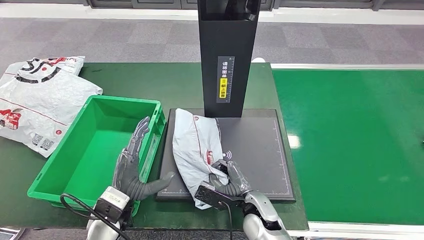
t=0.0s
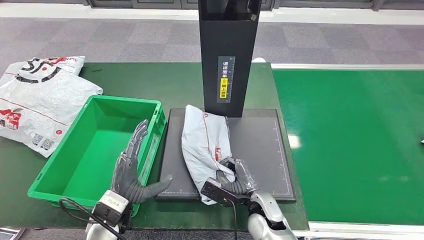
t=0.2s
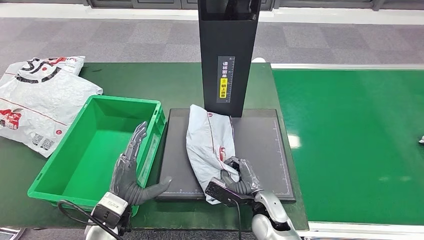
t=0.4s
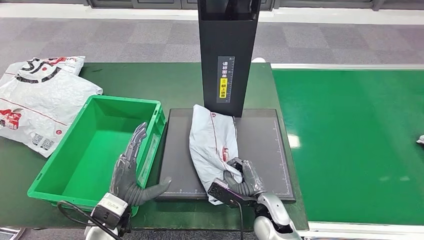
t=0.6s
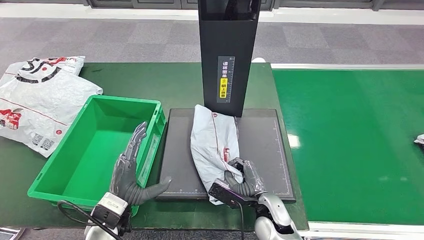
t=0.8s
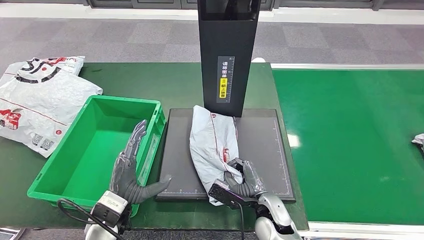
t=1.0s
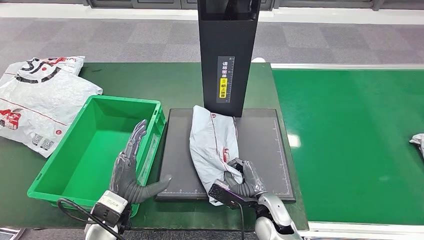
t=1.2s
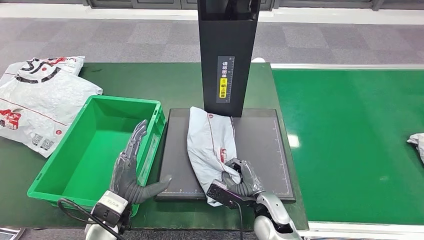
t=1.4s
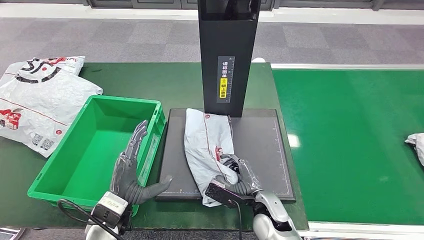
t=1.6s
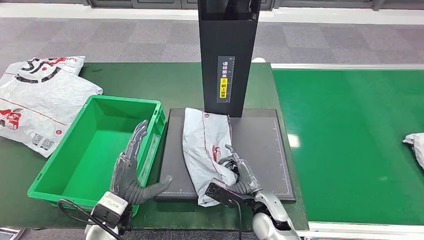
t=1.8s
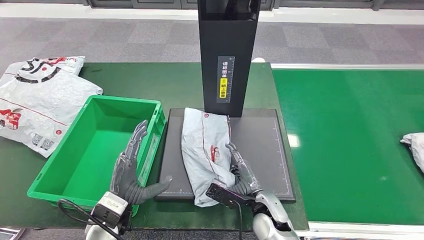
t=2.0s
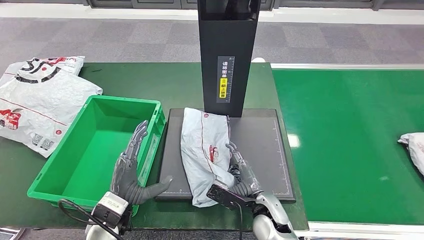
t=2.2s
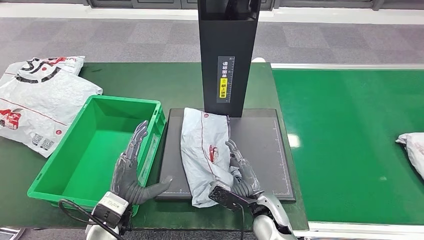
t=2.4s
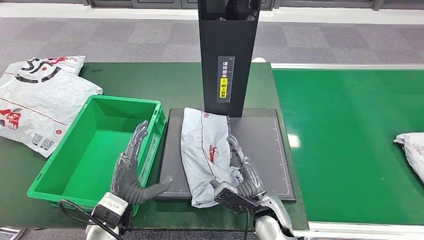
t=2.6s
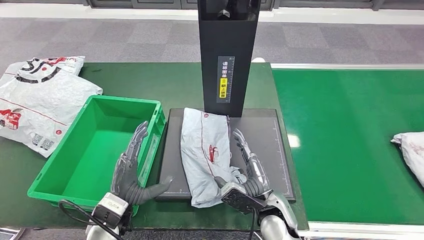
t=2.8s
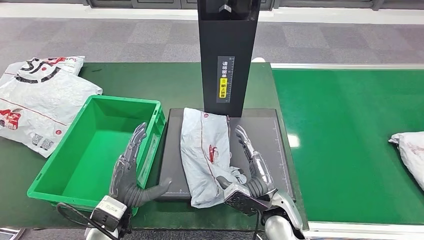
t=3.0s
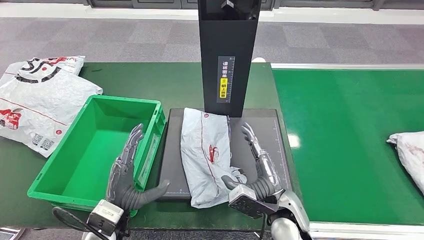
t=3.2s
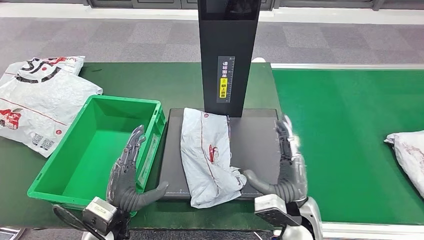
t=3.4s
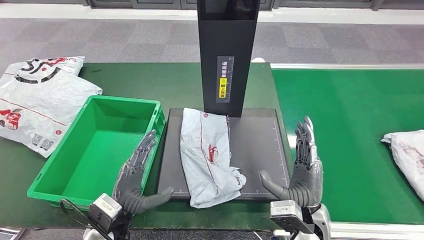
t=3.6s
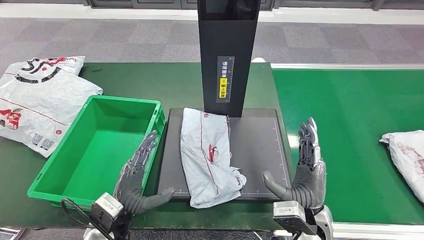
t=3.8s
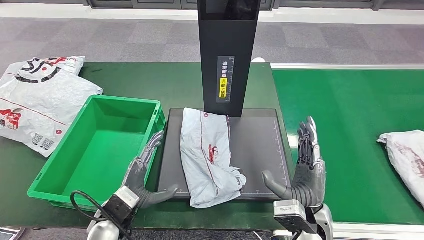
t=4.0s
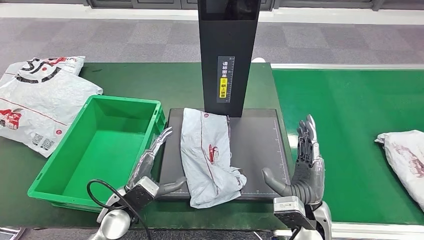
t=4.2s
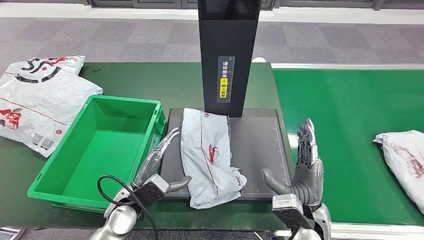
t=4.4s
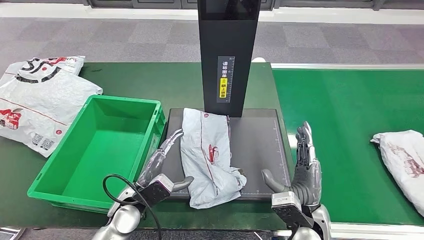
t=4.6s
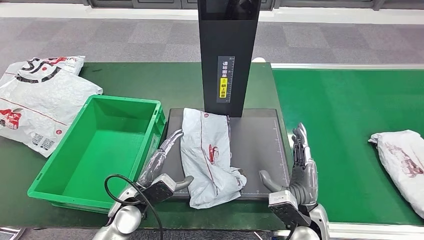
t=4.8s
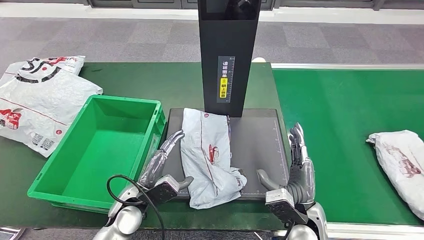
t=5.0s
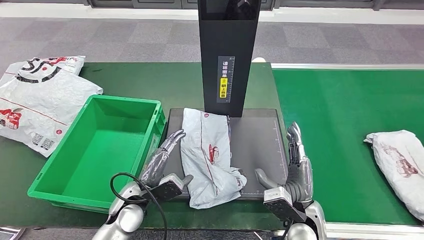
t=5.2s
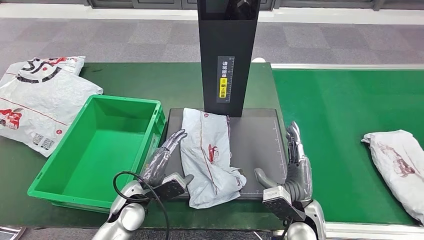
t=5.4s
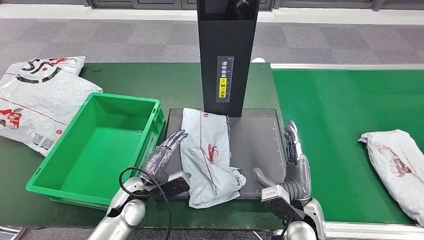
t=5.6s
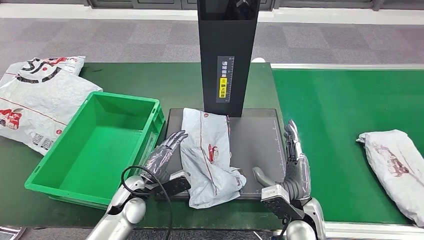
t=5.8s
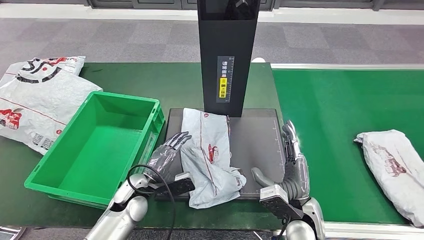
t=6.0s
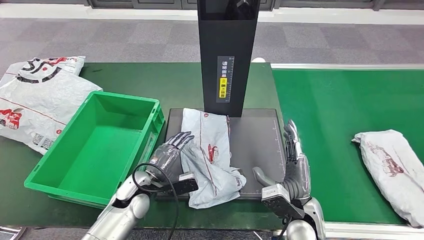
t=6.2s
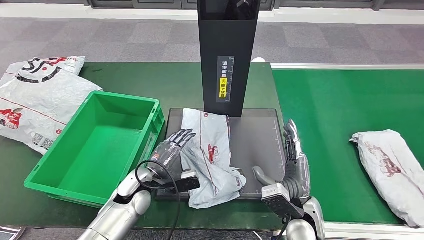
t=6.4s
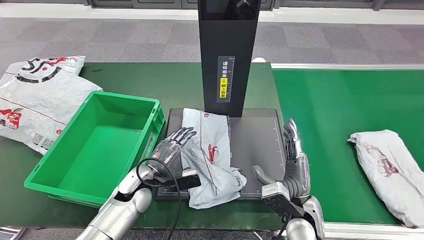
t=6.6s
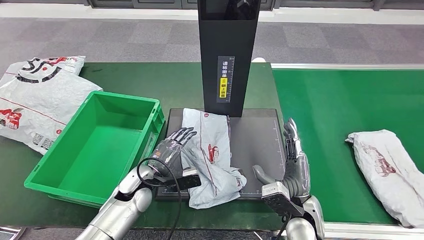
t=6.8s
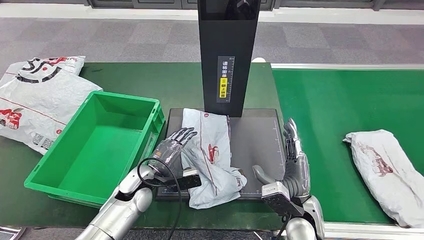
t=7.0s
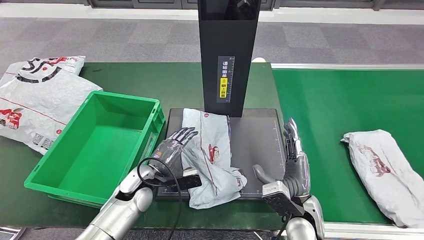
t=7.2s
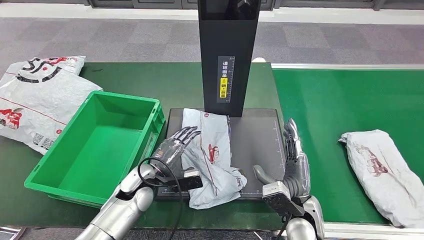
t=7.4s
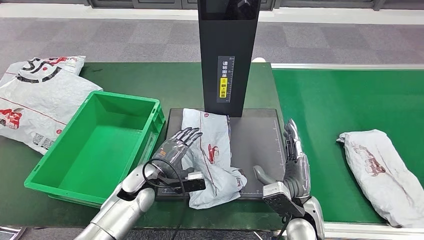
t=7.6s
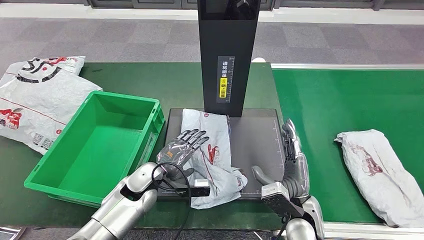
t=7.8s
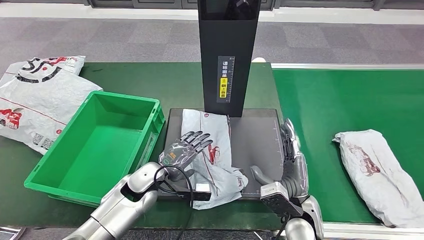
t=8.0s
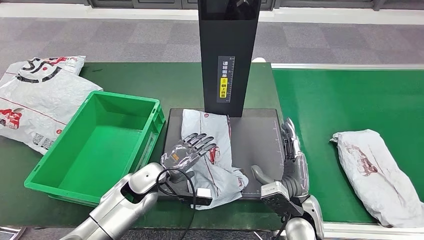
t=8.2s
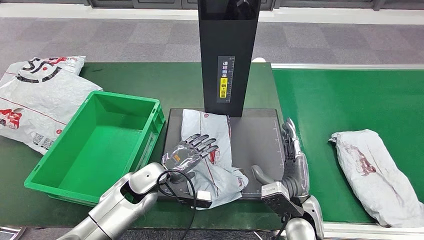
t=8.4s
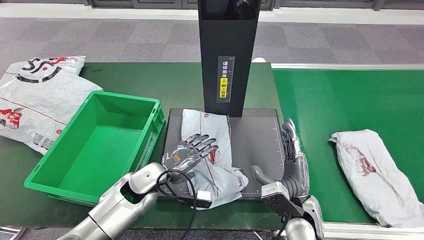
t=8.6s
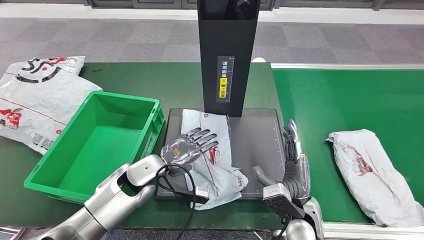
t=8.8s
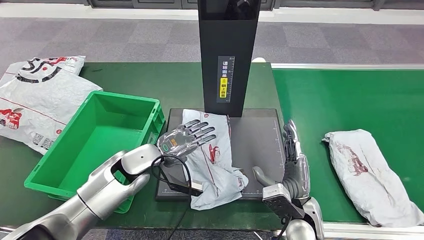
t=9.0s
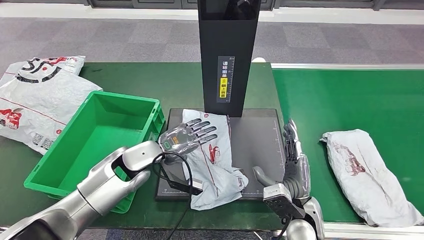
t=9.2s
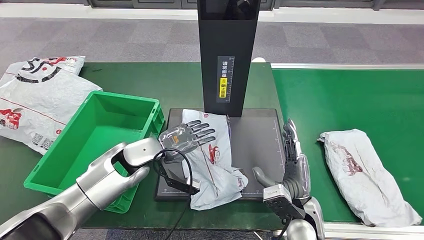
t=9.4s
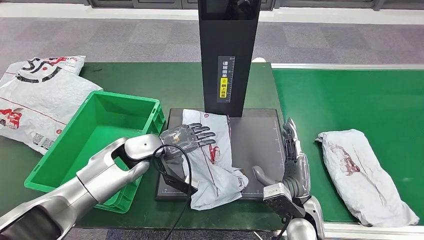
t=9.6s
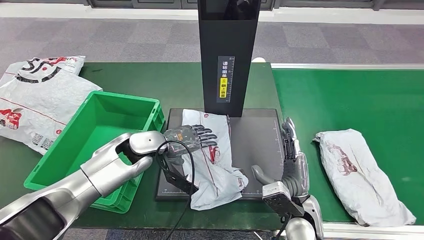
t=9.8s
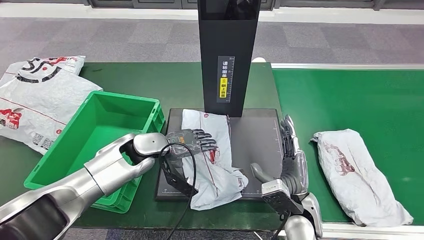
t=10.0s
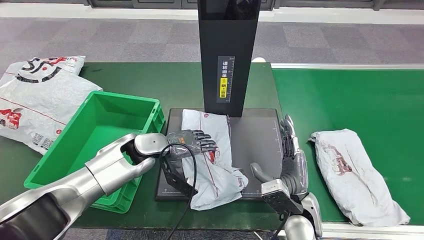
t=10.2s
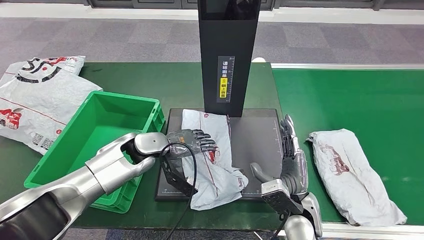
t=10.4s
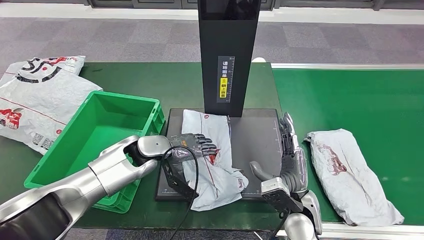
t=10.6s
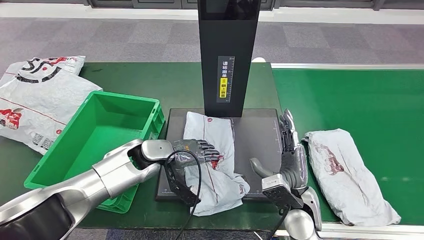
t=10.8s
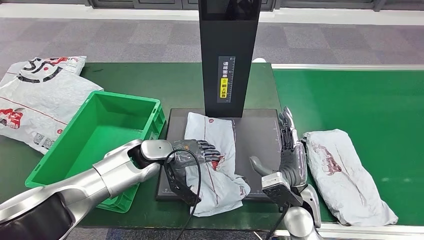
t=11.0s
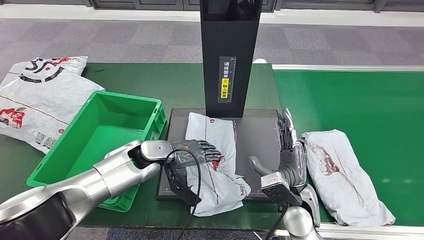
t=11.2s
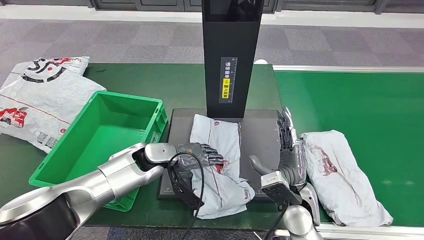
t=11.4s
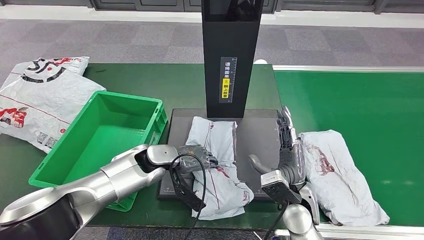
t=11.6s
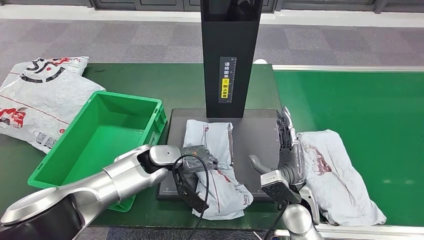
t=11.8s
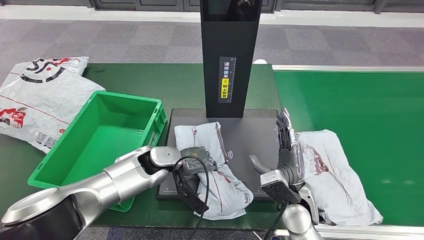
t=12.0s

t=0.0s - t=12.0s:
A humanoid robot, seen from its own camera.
Step, t=0.0s - t=3.4s: Place the parcel onto the inbound machine.
t=0.0s - t=1.6s: There are only small adjustments of the hands.
t=1.6s - t=3.0s: The right hand shifts approximately 5 cm upward.
t=3.0s - t=4.4s: The left hand changes place by roughly 5 cm; the right hand moves to the right, approximately 5 cm.
t=6.0s - t=7.6s: The hands stay close to where they were, moving slightly.
t=7.6s - t=9.0s: The left hand is displaced upward by some 5 cm.
t=9.0s - t=10.4s: The left hand goes about 5 cm forward.

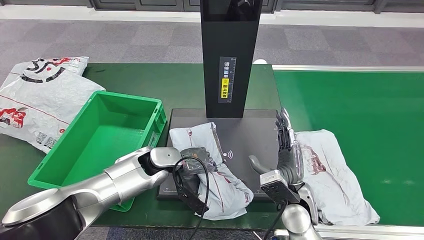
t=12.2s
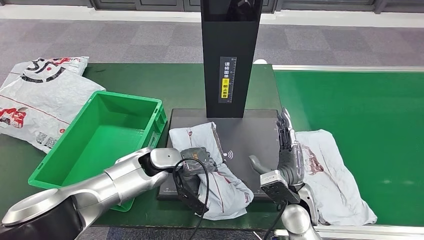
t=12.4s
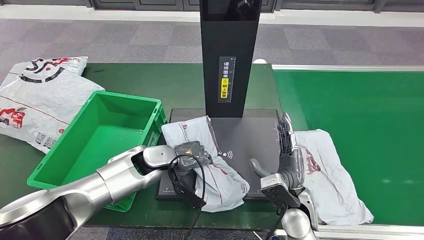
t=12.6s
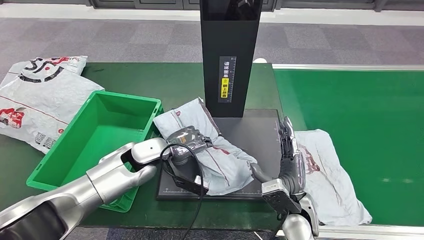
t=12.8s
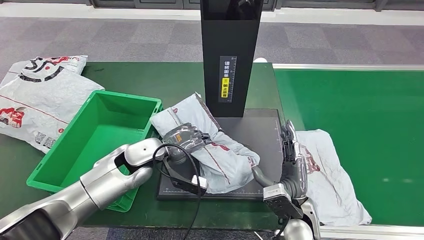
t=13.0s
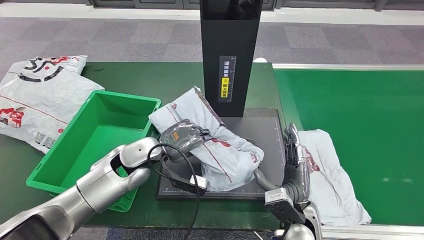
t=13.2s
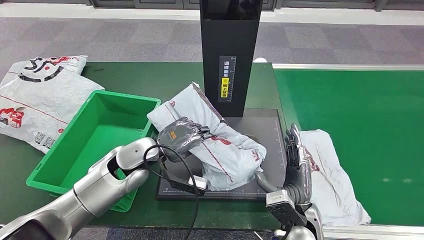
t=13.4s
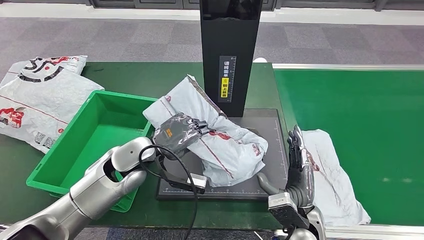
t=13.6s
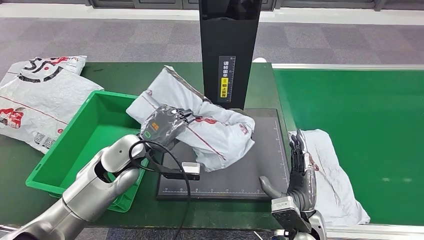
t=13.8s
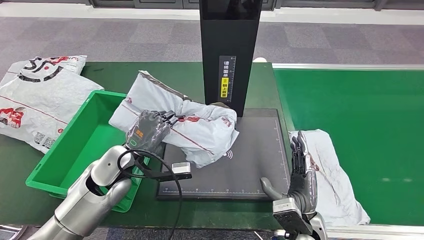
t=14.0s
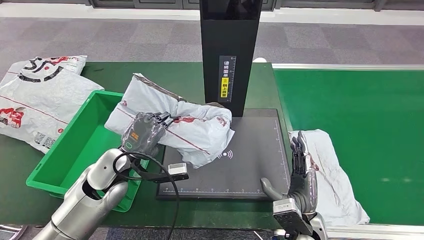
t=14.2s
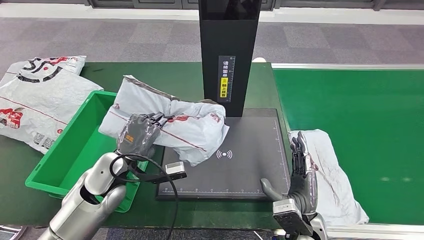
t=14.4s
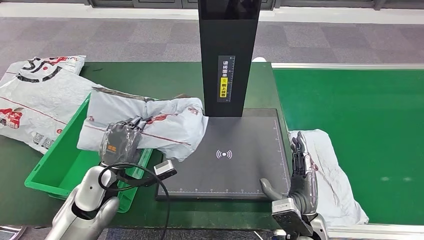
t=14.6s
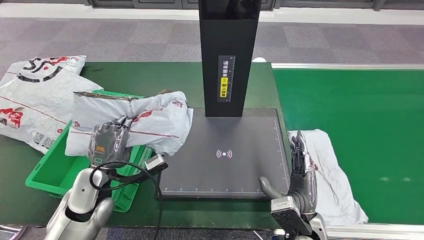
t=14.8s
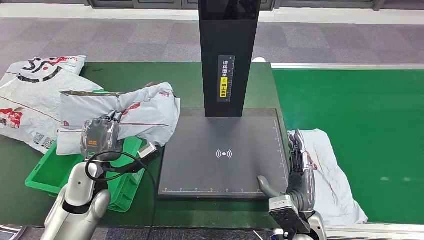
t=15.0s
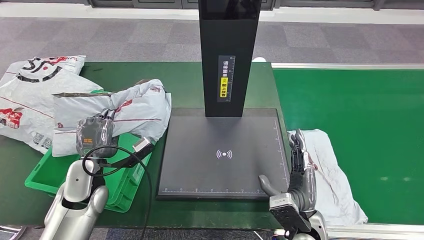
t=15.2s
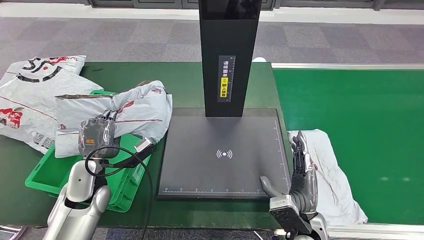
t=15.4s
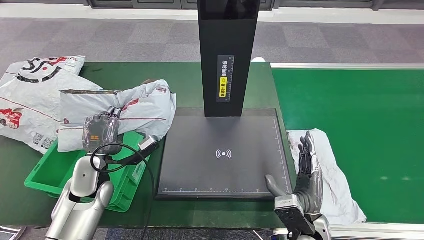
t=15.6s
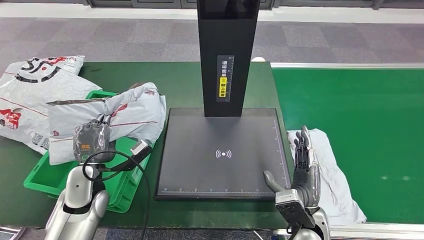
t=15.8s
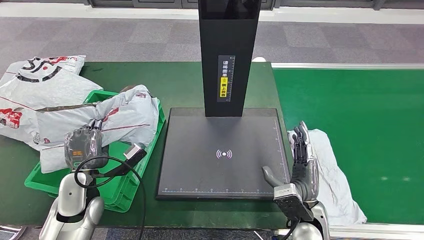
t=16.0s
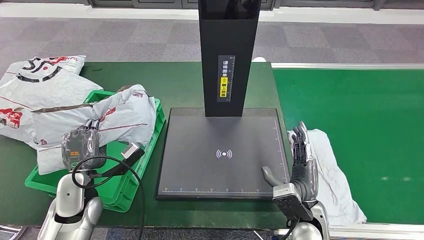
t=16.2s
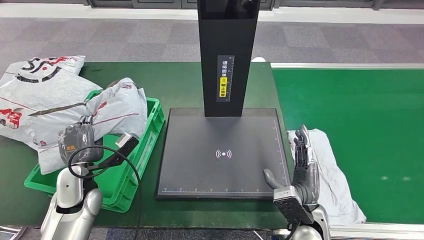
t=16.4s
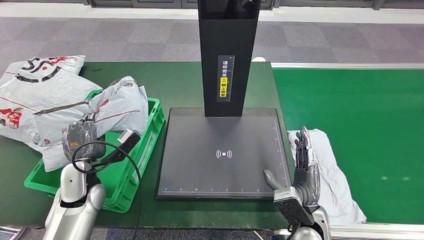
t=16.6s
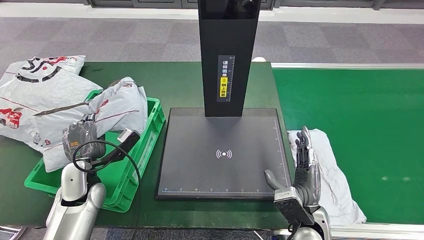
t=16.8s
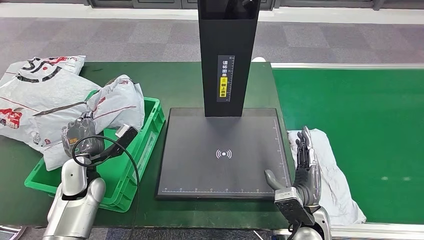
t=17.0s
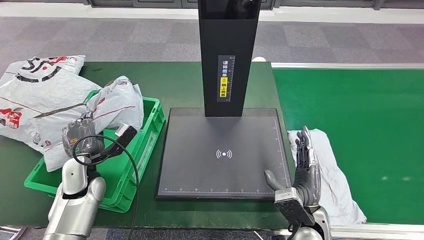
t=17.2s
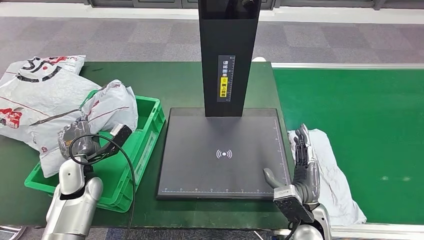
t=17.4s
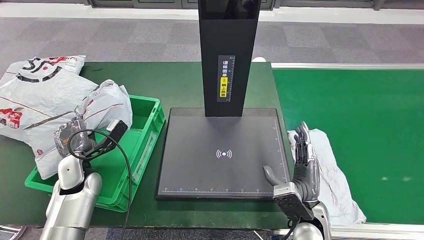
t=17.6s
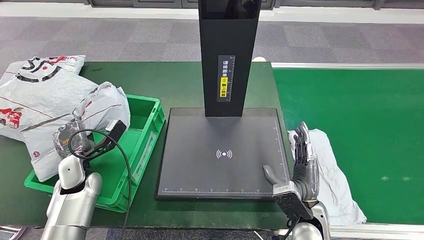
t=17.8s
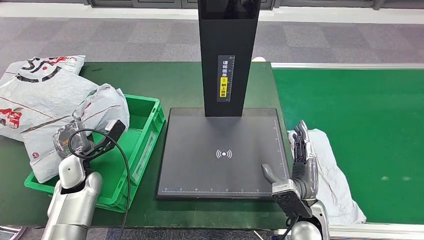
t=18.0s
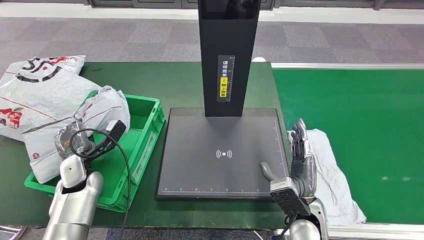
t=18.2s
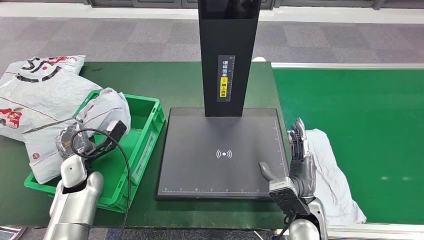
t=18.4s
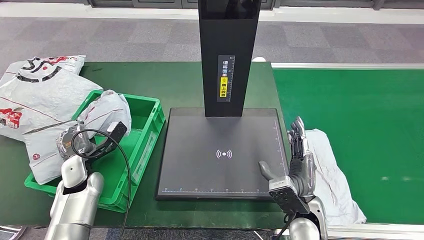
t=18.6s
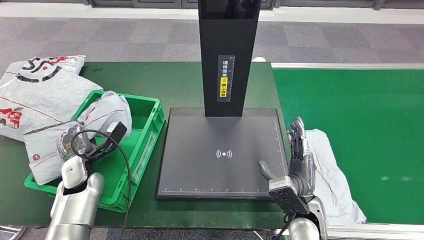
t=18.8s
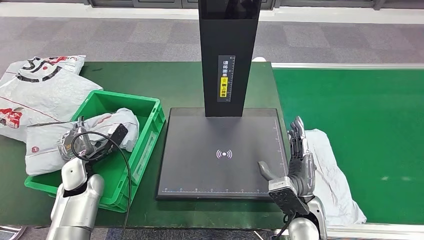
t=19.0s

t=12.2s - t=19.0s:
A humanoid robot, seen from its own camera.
t=15.0s - t=16.2s: The hands move only a little.
t=16.2s - t=17.6s: The left hand travels forward by roughly 5 cm.
t=17.6s - t=19.0s: The hands move only a little.
